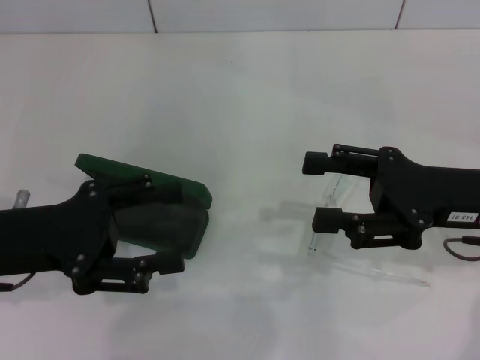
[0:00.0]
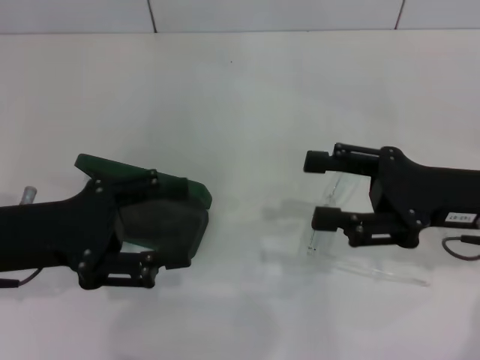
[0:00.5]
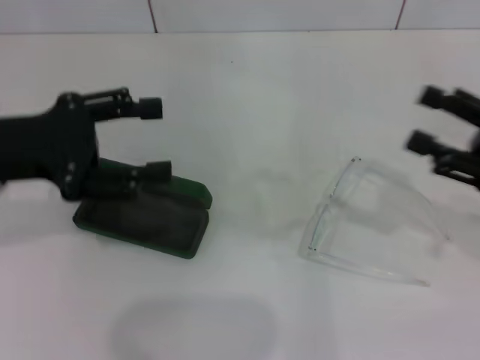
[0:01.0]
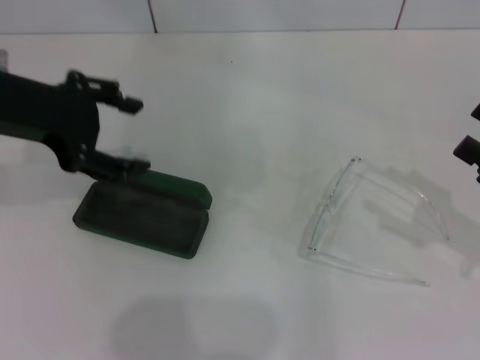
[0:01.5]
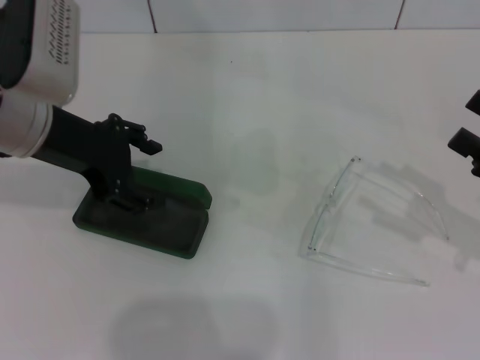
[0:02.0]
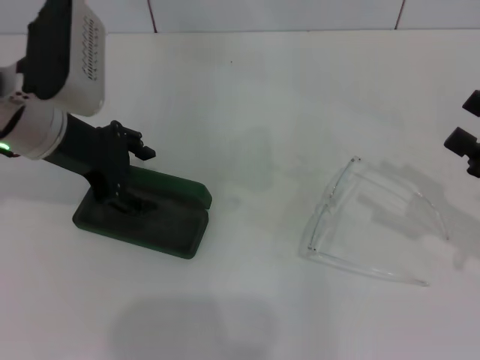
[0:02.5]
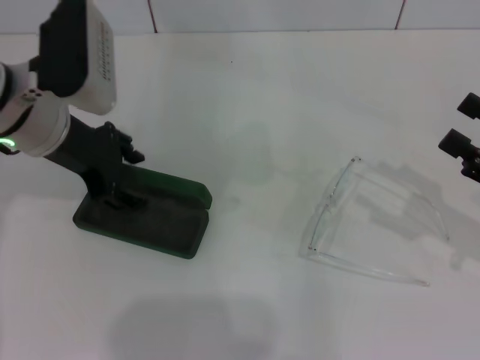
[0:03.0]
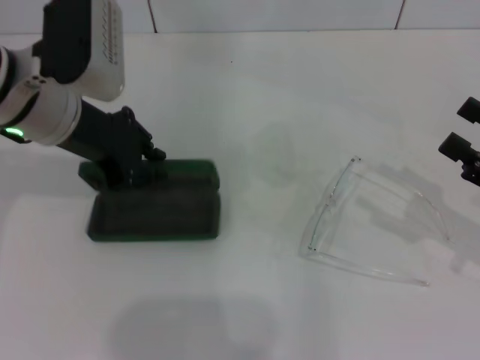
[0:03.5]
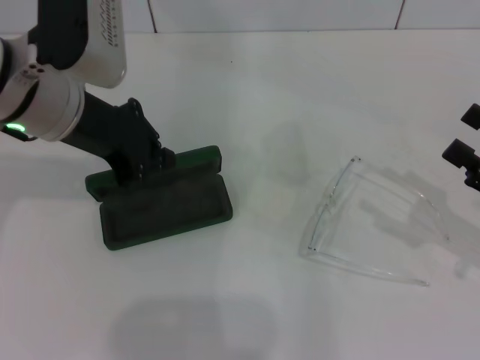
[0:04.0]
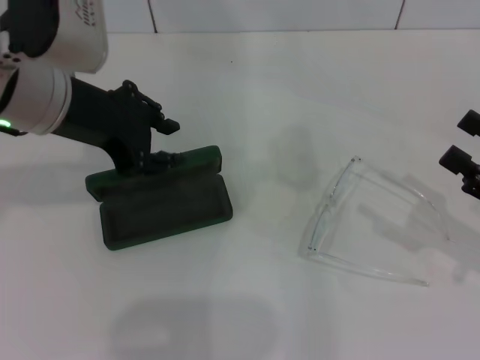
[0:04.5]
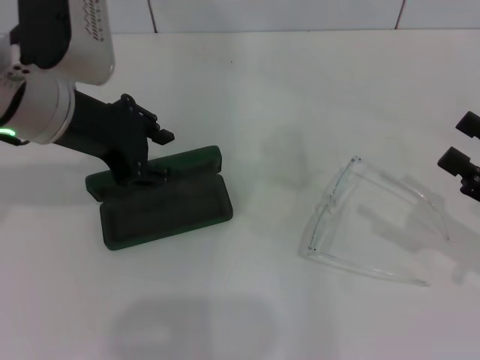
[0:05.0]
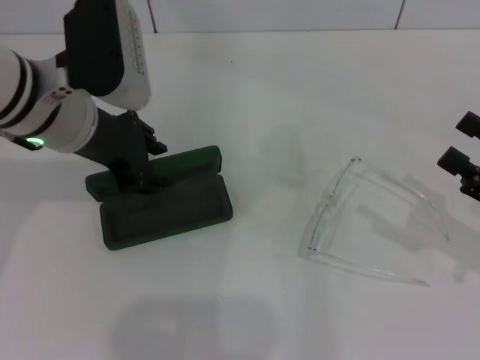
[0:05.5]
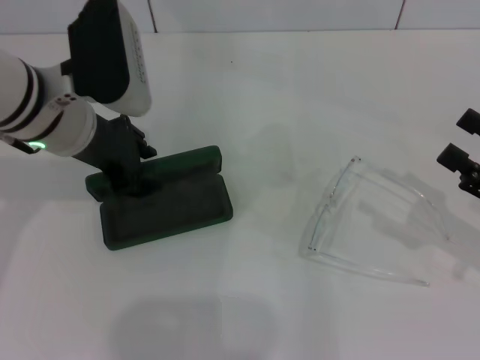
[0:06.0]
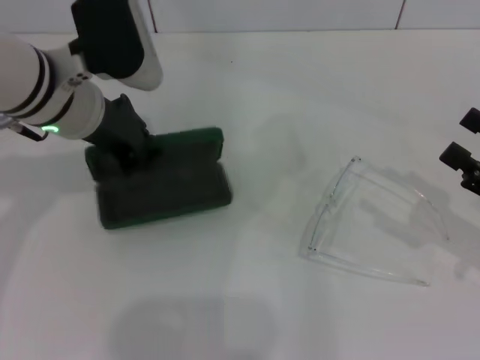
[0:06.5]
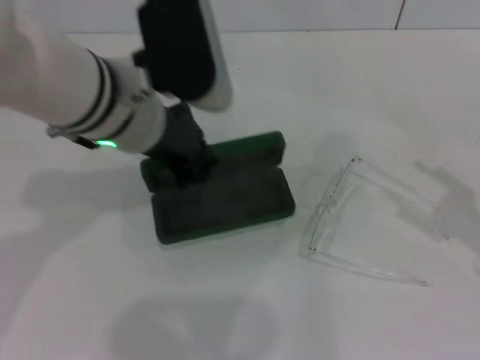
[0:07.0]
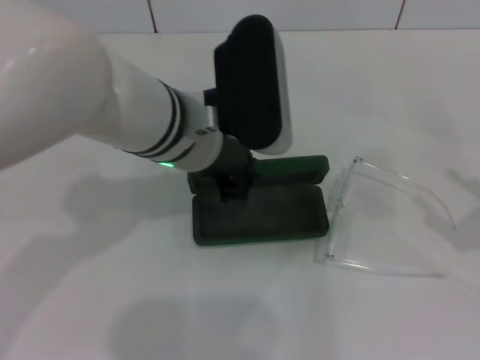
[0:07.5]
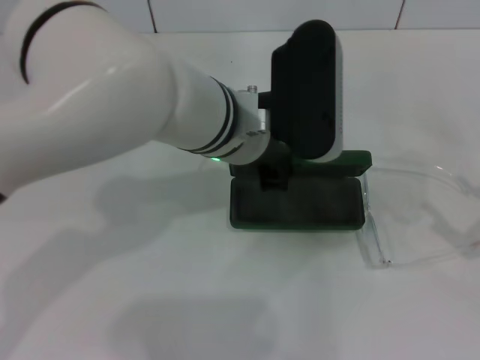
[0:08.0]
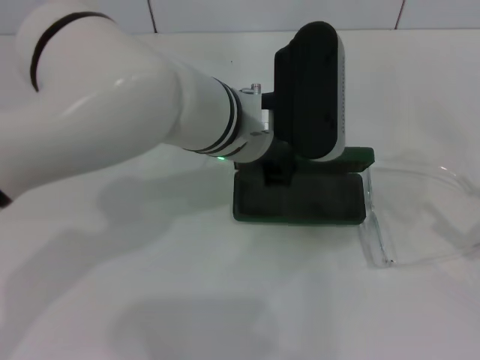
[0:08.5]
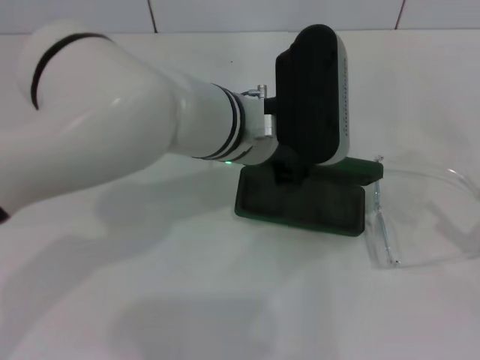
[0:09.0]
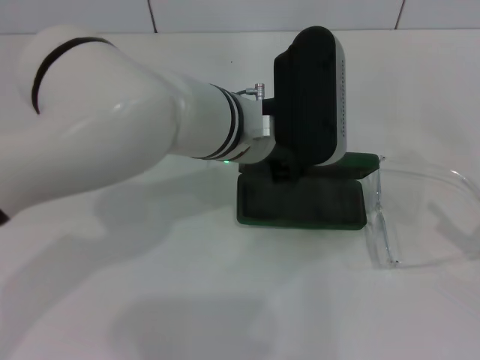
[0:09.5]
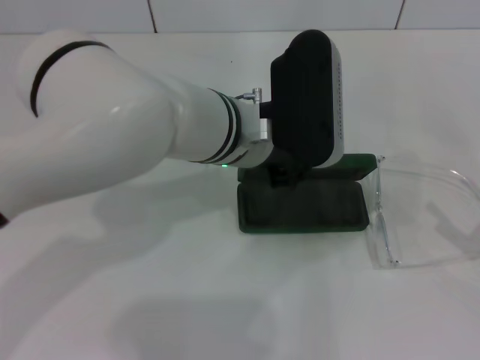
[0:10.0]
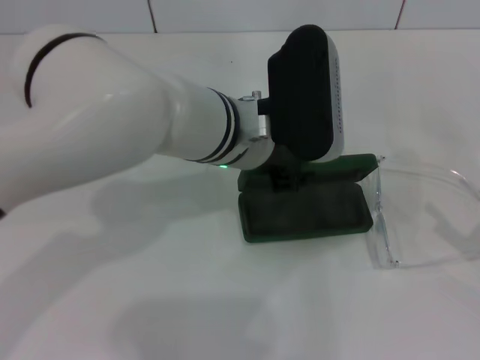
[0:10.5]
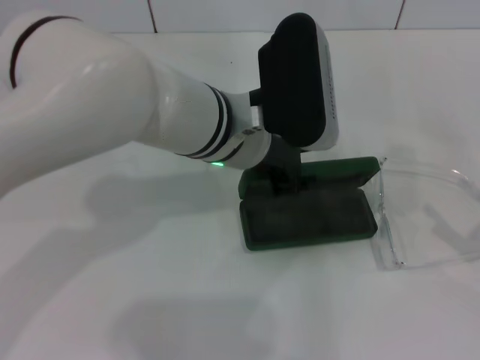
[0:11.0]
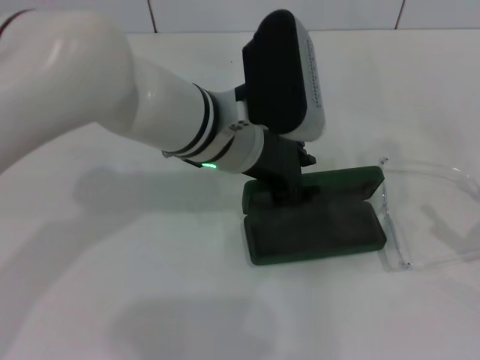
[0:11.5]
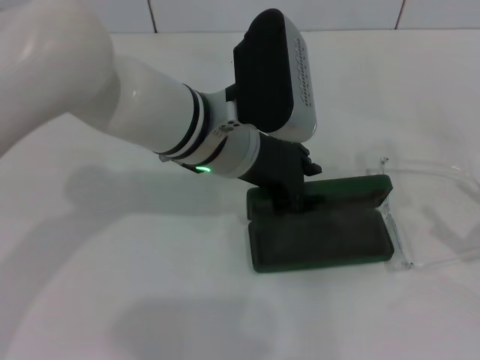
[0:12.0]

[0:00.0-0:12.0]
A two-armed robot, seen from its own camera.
Step, 0:00.0 to 0:06.0: Grab the glasses case with your left hand.
0:00.0 to 0:02.0: The right gripper moves to the right, about 10 cm, while the left gripper shifts some 15 cm forward, upward and to the right.
0:02.0 to 0:04.0: The left gripper closes.
0:04.0 to 0:06.0: The left gripper opens its fingers.
0:06.0 to 0:08.0: The left gripper heads to the right, covering approximately 15 cm, and closes, while the right gripper moves backward, approximately 5 cm.
0:08.0 to 0:10.0: The left gripper opens.

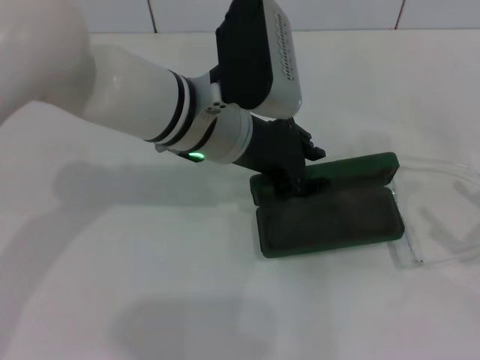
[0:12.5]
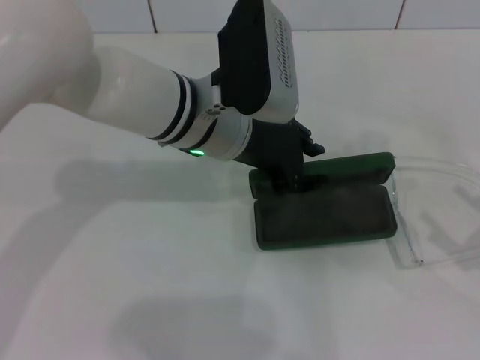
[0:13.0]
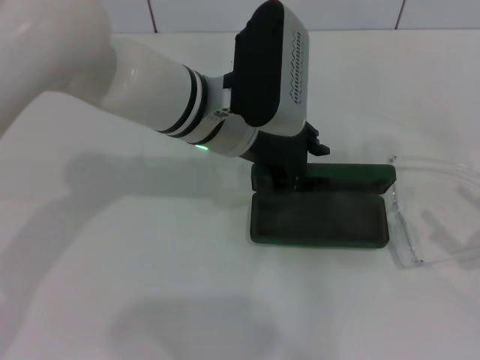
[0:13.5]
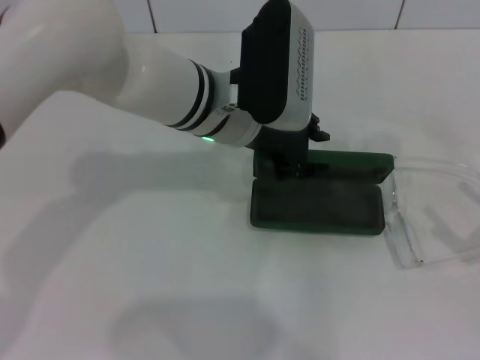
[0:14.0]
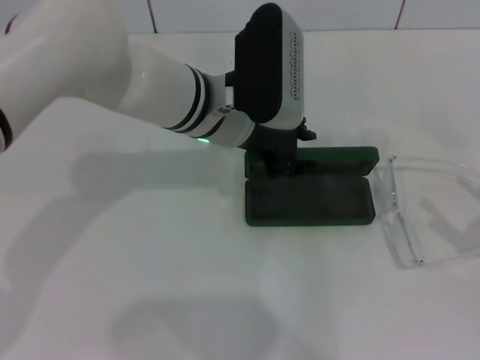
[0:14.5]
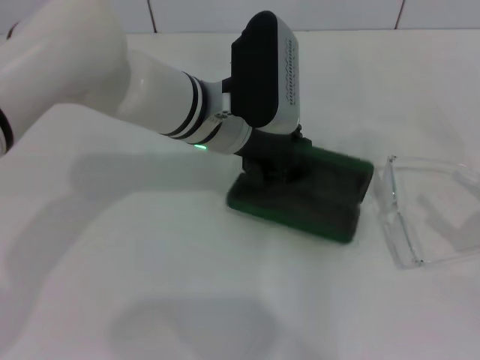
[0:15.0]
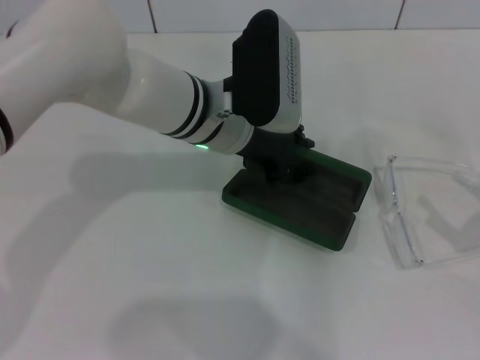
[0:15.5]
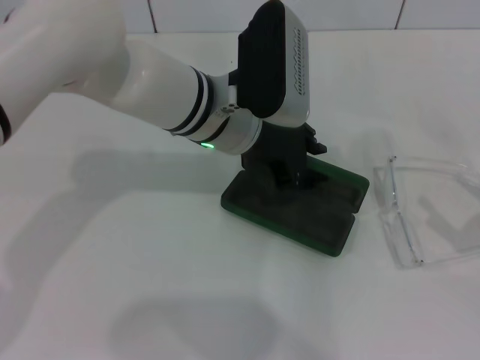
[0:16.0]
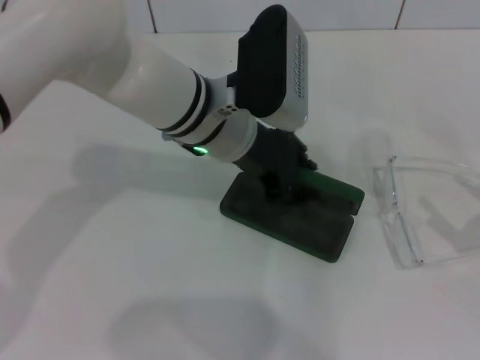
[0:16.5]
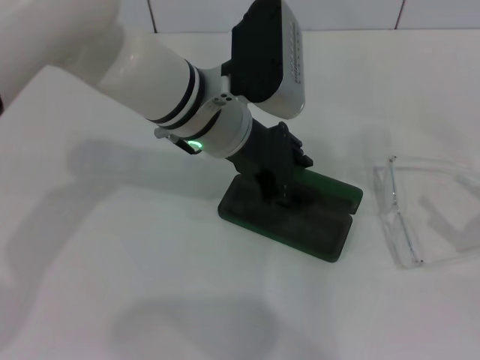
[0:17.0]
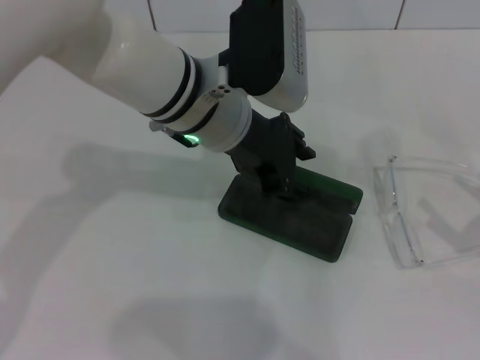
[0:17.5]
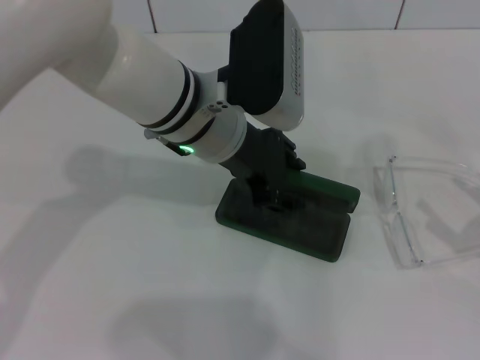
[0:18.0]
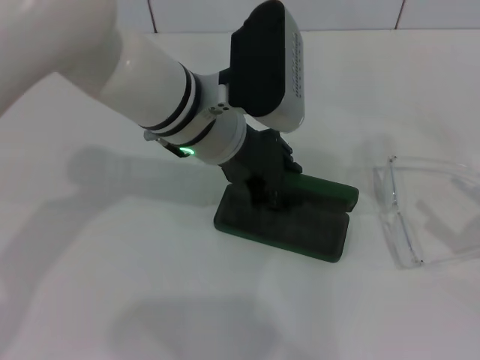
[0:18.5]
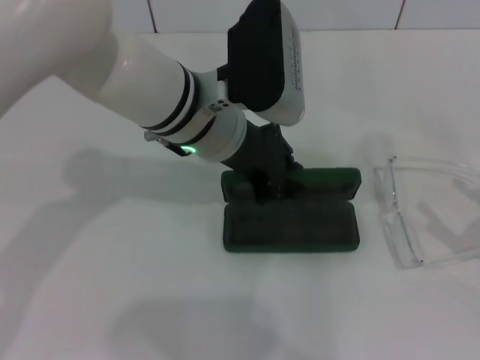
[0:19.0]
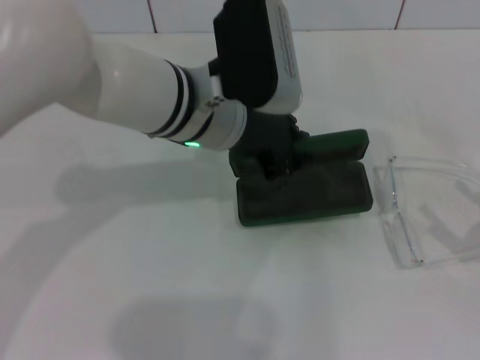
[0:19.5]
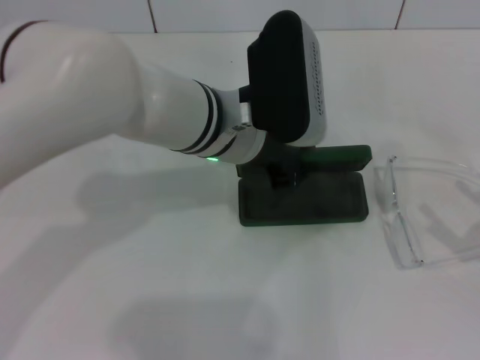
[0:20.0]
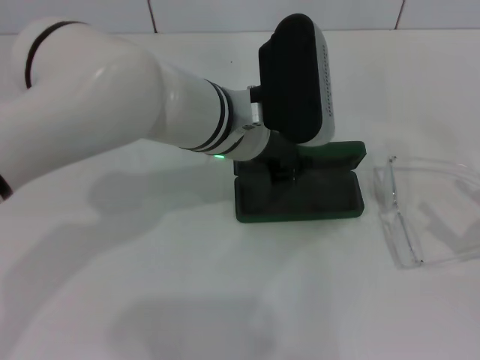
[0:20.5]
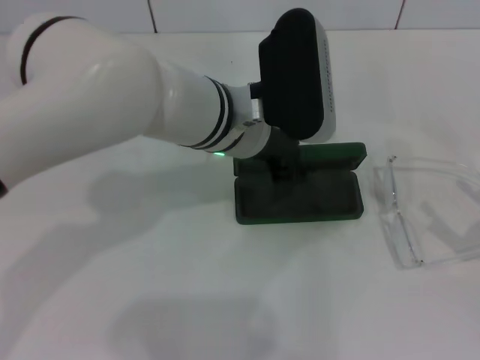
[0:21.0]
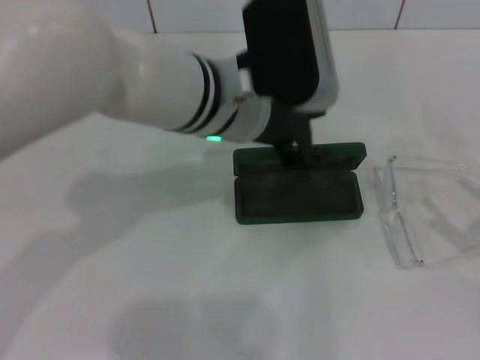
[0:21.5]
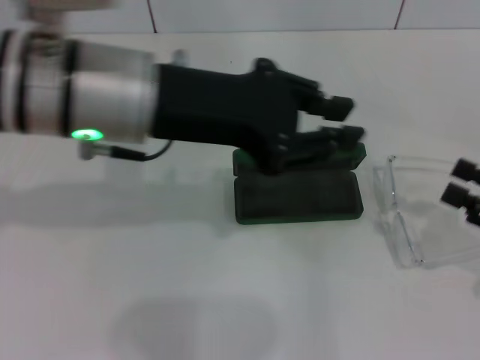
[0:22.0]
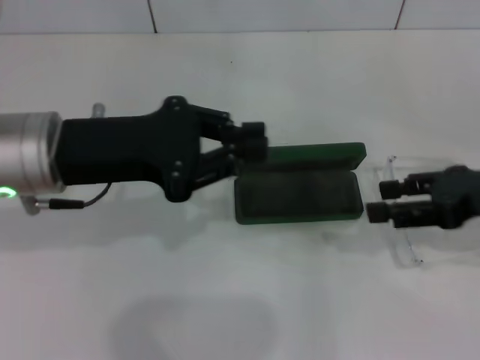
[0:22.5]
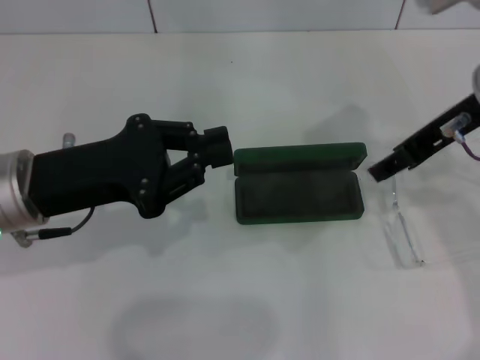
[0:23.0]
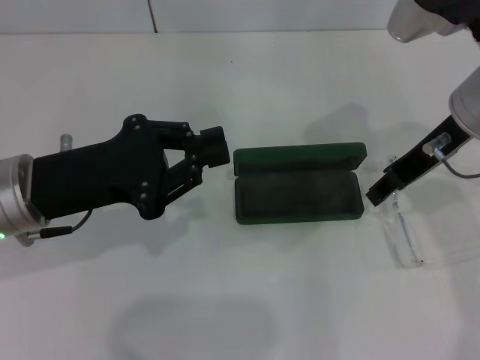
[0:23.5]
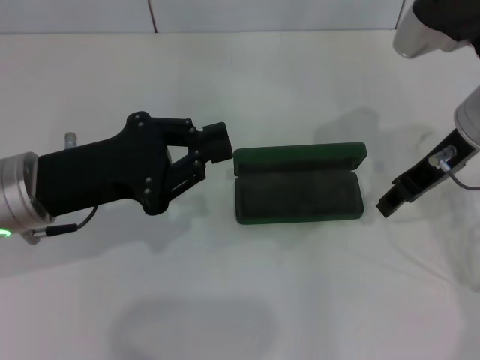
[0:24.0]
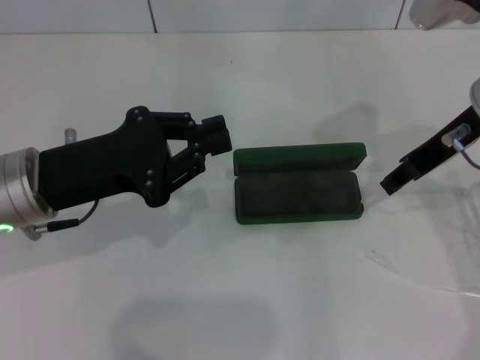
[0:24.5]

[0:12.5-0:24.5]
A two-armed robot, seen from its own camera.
Step, 0:12.5 to 0:21.0: Place the glasses case in the center of the table with your left hand.
0:12.5 to 0:18.5: The grippers move only a little.
0:18.5 to 0:20.5: The left gripper closes.
0:20.5 to 0:22.5: The right gripper is displaced upward, forward and to the left by some 15 cm. Meanwhile the left gripper shifts about 15 cm to the left, and opens and closes again.
0:22.5 to 0:24.5: The right gripper goes roughly 10 cm to the left and forward. The left gripper changes place by roughly 5 cm.

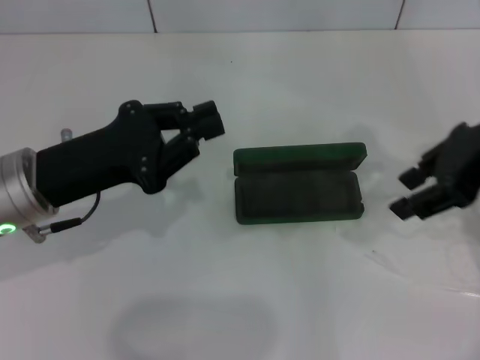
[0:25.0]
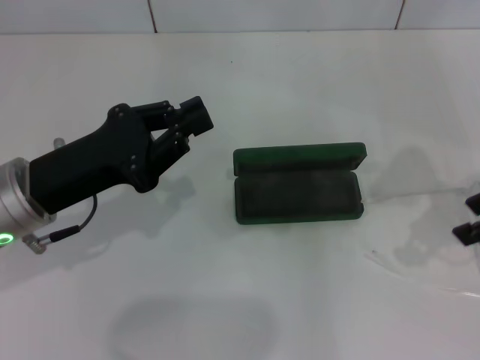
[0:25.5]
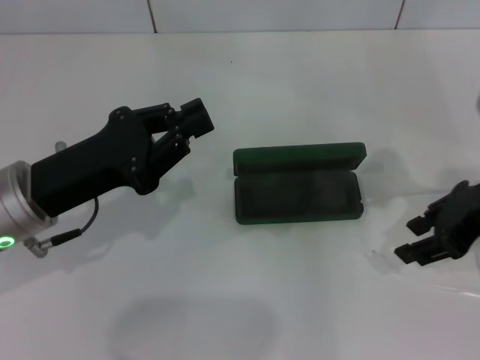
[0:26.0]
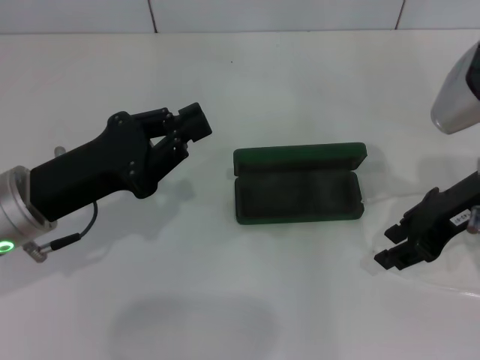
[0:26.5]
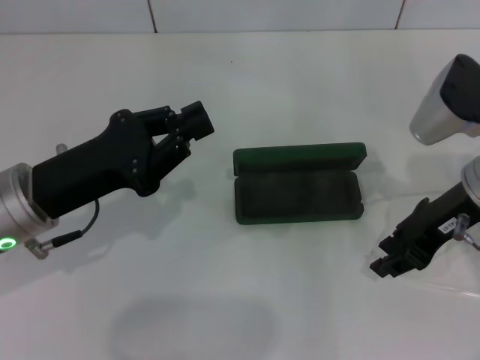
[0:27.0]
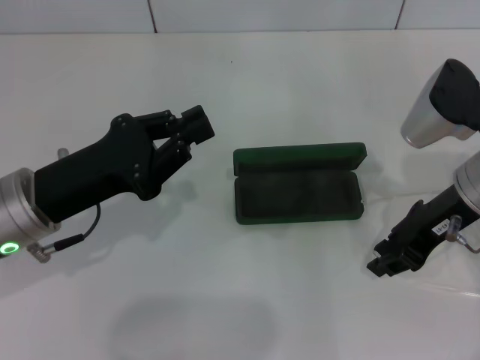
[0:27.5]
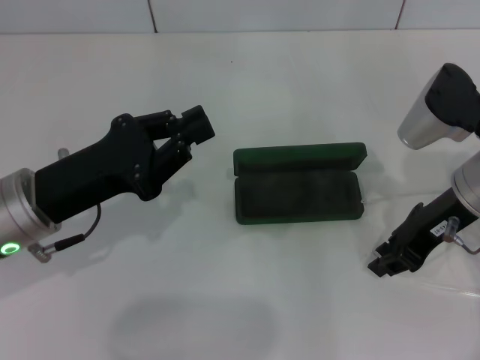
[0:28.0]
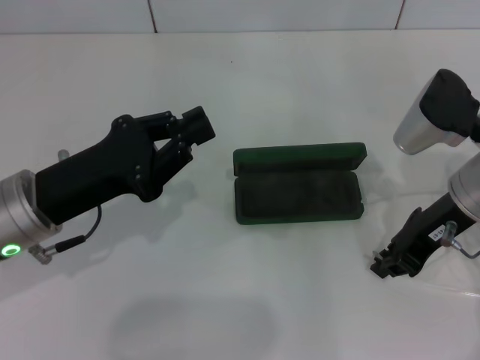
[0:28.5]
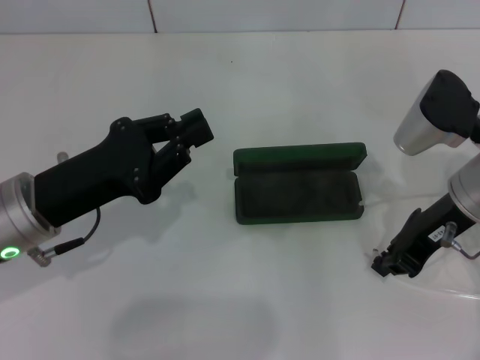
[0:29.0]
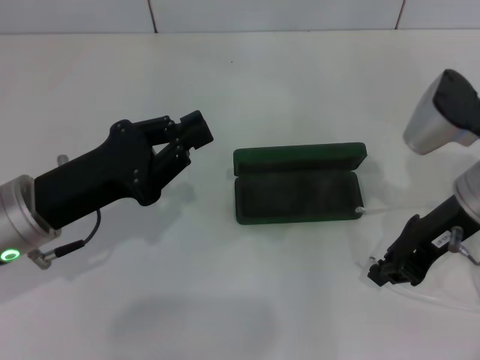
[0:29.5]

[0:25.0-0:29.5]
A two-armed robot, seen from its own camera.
Step, 0:25.0 to 0:29.5: Grab the frame with your right hand.
0:25.0 to 0:27.0: The right gripper goes about 10 cm downward.
0:27.0 to 0:29.5: The right gripper closes.
